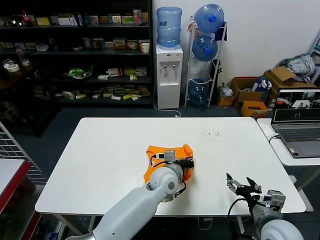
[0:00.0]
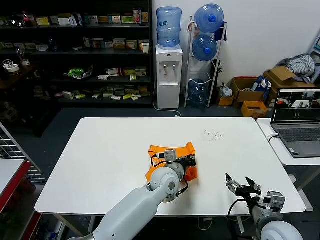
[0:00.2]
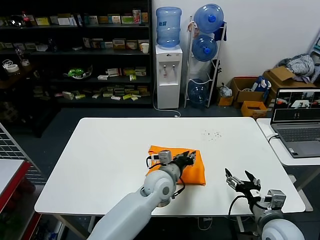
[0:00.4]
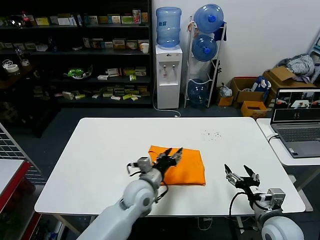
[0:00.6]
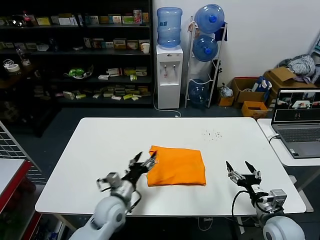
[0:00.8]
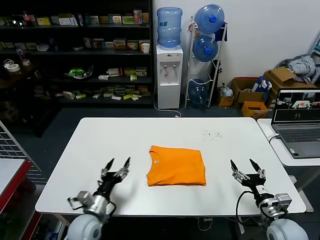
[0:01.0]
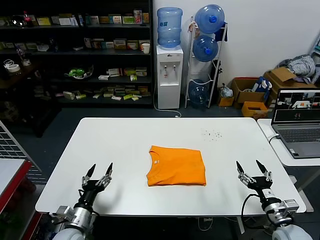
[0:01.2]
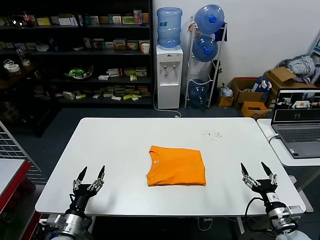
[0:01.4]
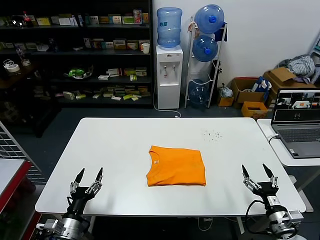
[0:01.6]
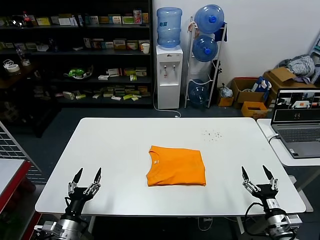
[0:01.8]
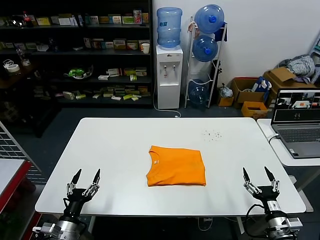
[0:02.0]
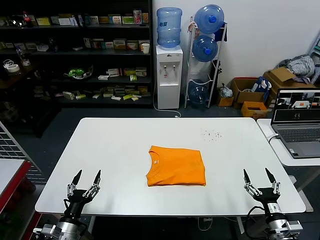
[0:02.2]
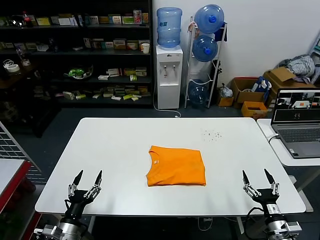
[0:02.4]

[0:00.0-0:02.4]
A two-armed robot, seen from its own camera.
Task of the whole recording: fold and organize the clothes.
0:00.0 to 0:01.2: The right gripper heads downward and to the right, covering some 10 cm, while the left gripper is displaced to the left and backward by approximately 35 cm, and opens up.
0:01.2 to 0:02.4: The left gripper moves backward, approximately 5 cm, while the right gripper ends up some 5 cm from where it was.
